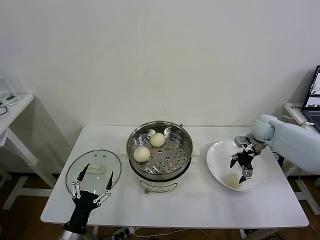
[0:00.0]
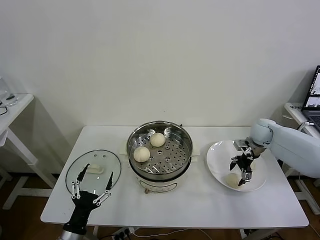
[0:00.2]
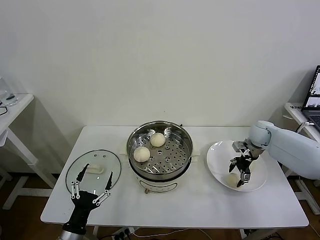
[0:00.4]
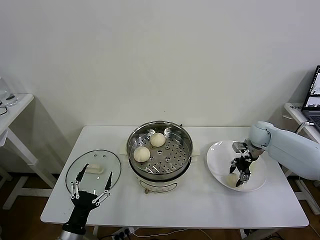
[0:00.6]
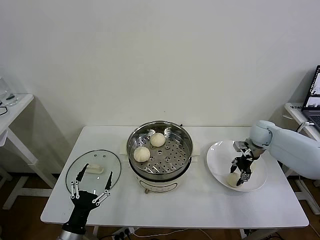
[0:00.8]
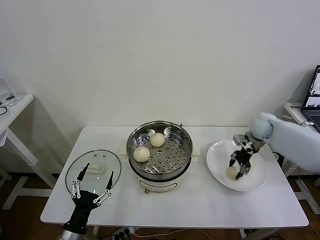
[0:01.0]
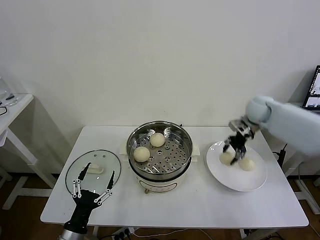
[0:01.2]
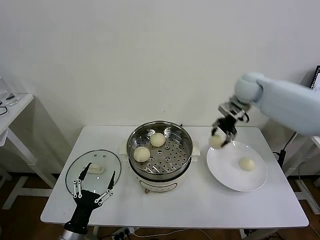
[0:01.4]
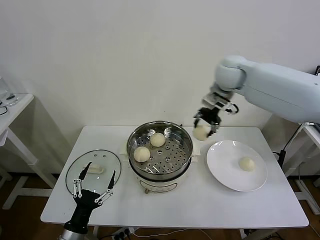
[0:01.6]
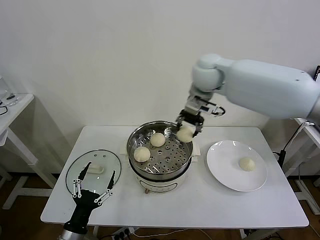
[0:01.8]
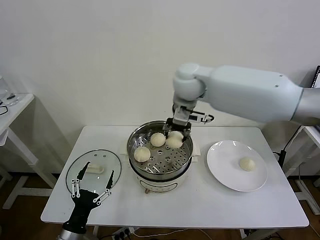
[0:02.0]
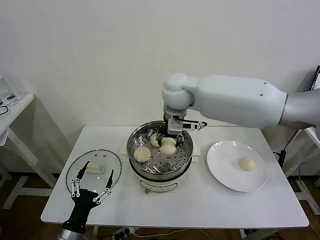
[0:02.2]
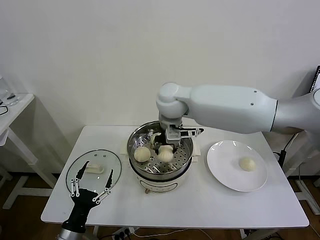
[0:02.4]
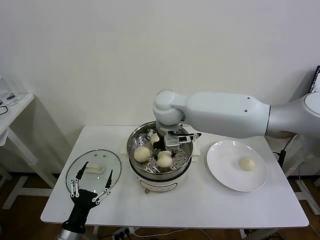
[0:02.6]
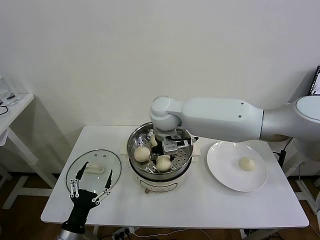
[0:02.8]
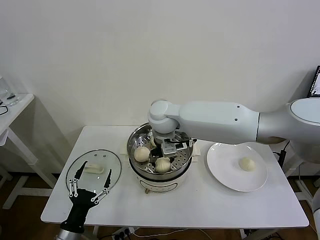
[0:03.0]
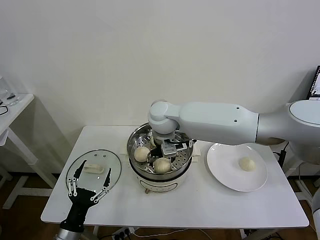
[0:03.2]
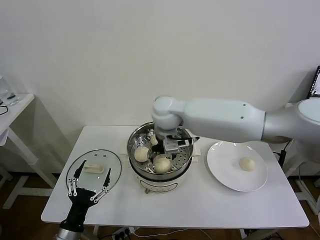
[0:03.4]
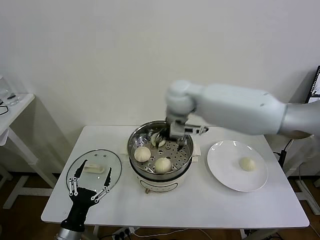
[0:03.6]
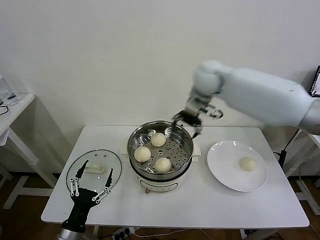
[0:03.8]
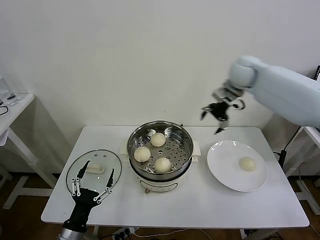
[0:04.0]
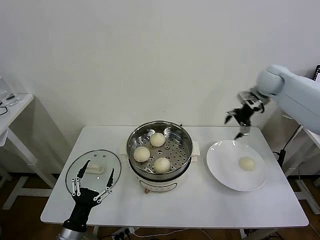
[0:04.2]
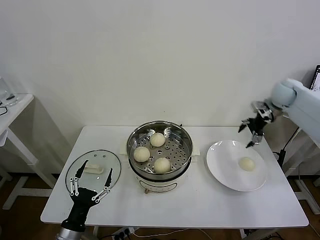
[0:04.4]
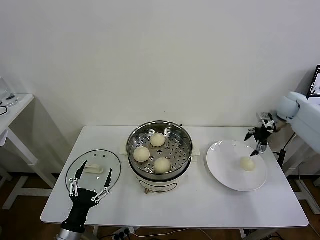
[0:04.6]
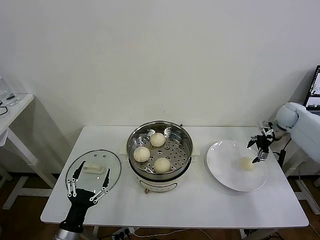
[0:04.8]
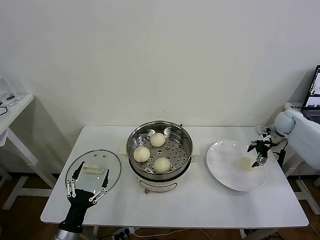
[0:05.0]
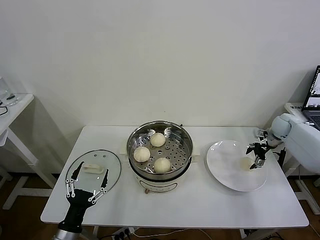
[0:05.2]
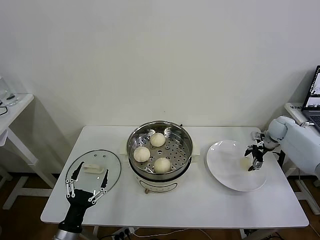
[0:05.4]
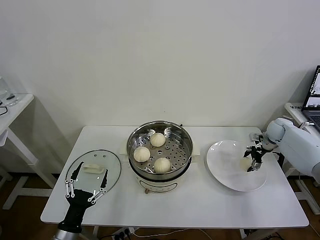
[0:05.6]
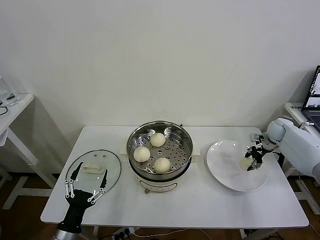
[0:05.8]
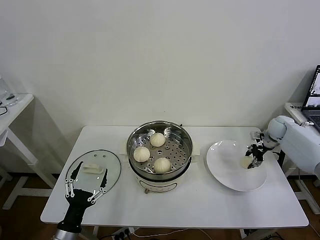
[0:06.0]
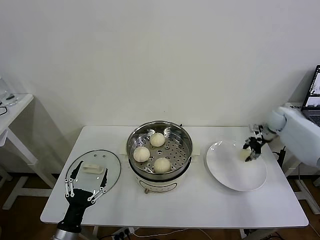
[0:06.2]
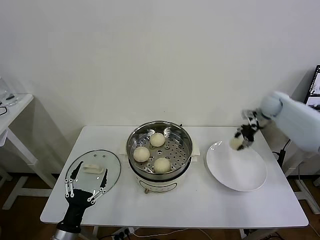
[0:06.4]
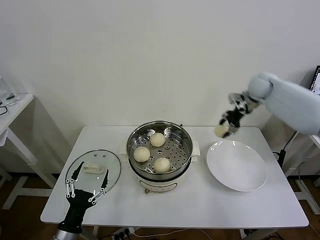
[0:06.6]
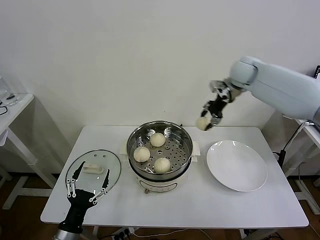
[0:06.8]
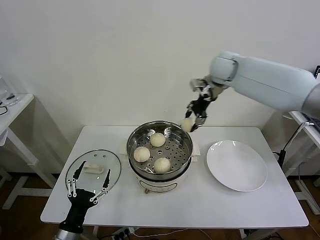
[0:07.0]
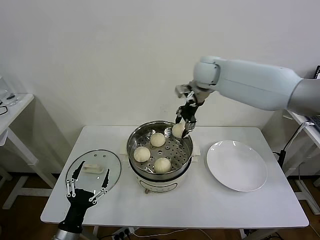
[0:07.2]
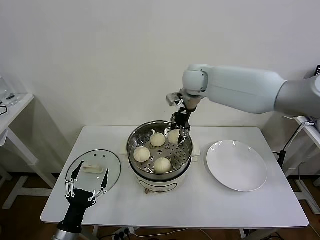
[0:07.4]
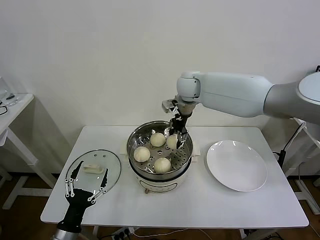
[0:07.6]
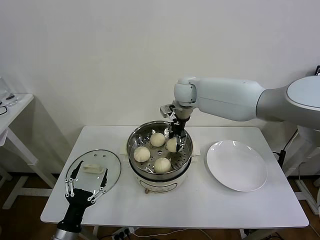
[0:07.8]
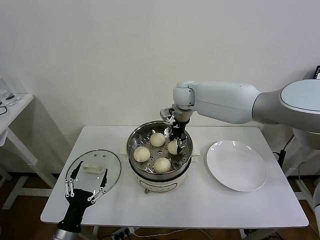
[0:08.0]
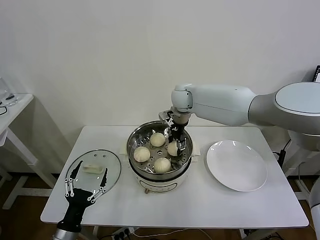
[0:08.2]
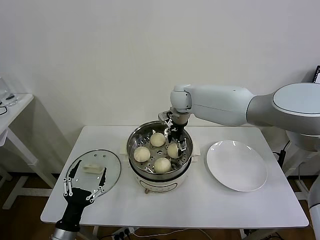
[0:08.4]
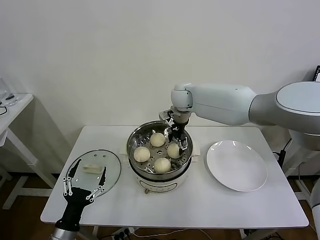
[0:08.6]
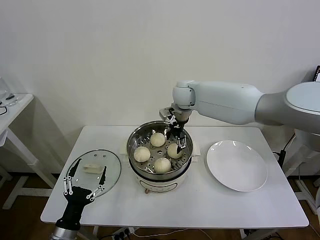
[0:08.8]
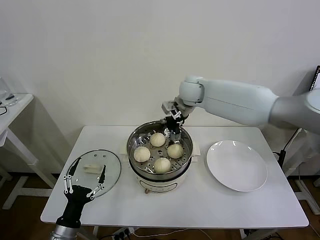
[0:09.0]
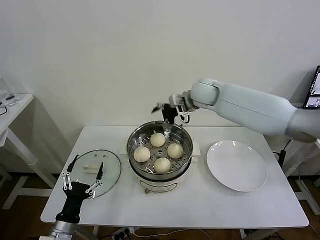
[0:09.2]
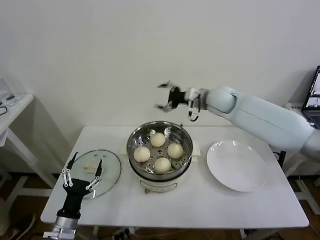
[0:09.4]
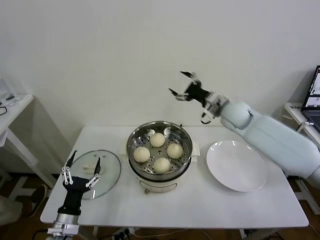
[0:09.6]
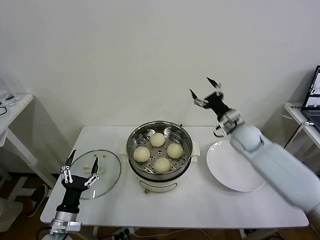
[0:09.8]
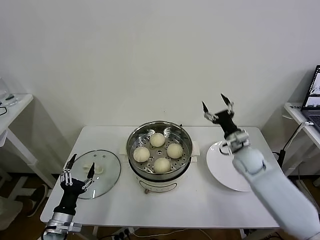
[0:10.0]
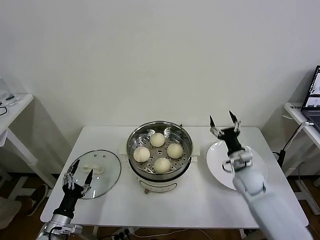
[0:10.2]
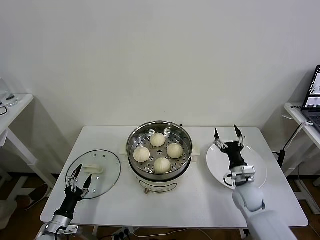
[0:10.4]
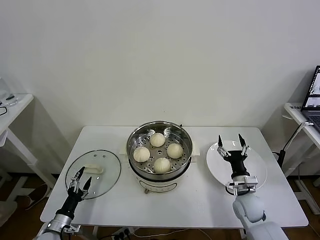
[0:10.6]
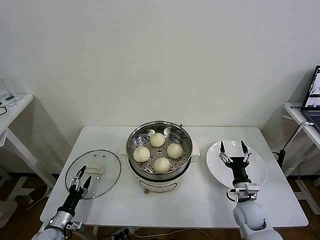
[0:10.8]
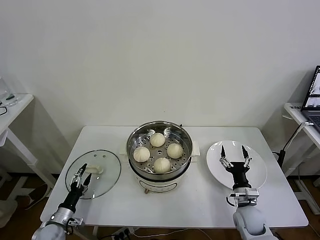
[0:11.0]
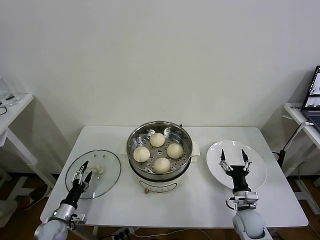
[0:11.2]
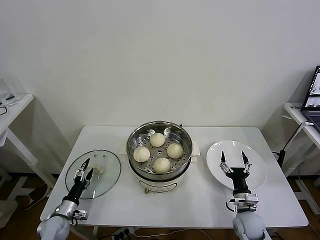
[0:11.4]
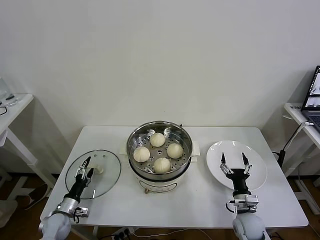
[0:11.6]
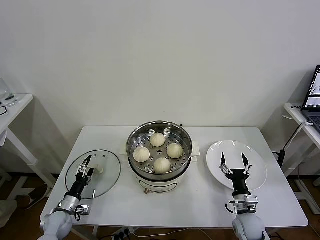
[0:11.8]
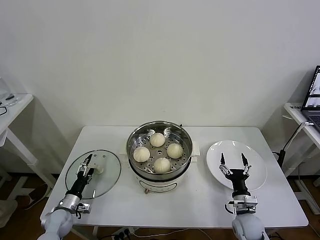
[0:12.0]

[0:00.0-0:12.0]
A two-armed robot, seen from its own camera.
Task of the whole recording: take steamed baozi put them in steamer then cover it.
Step, 0:00.8 to 0:03.2: Place the baozi on the steamer with right gripper.
Step, 0:03.4 to 0:05.8: Grasp the baozi in the plate with right gripper.
Step, 0:06.0 to 0:08.6: Place the baozi on the steamer with right gripper.
0:00.0 to 0:01.6: The right gripper moves upward and to the left, roughly 30 cm, and closes up.
0:01.6 to 0:03.0: The right gripper shifts some 20 cm to the left, downward and backward, and opens.
0:03.0 to 0:04.4: The right gripper moves to the right, about 40 cm.
0:04.4 to 0:06.0: The right gripper heads downward, covering approximately 15 cm, and closes up.
0:06.0 to 0:07.6: The right gripper heads to the left and upward, covering some 40 cm.
0:07.6 to 0:09.0: The right gripper opens.
0:09.0 to 0:10.4: The right gripper goes approximately 40 cm downward, backward and to the right. The left gripper heads downward and to the left, covering approximately 10 cm.
0:10.4 to 0:12.0: The right gripper travels backward and downward by about 10 cm, while the left gripper moves forward, about 10 cm.

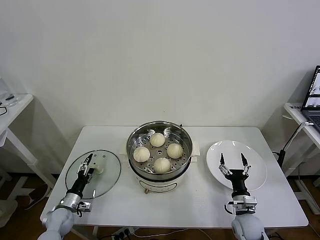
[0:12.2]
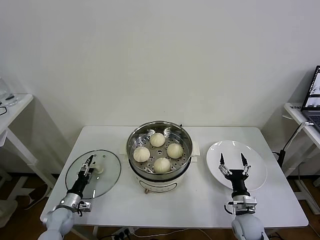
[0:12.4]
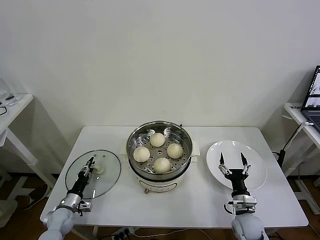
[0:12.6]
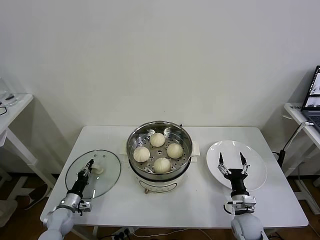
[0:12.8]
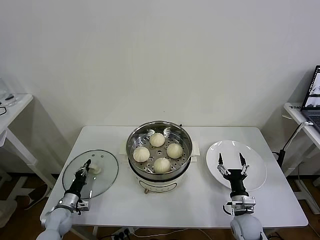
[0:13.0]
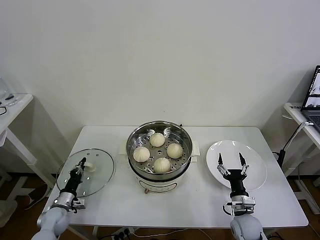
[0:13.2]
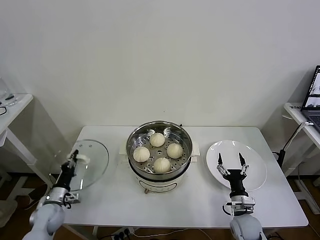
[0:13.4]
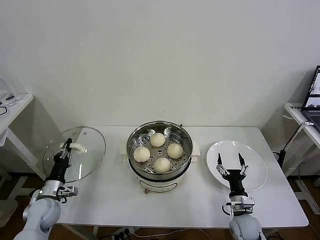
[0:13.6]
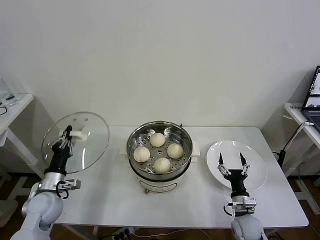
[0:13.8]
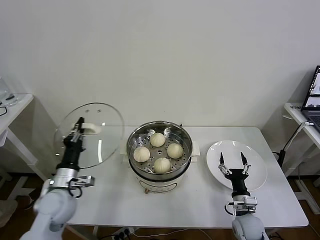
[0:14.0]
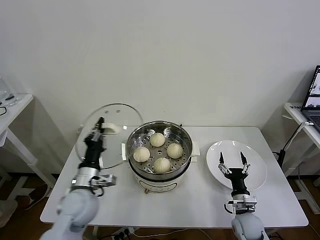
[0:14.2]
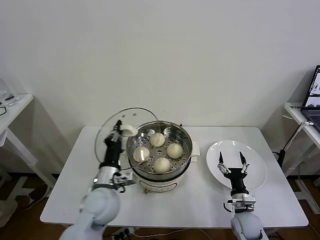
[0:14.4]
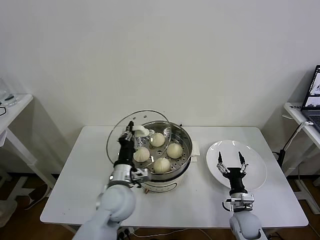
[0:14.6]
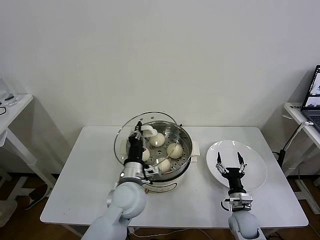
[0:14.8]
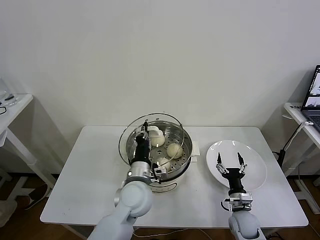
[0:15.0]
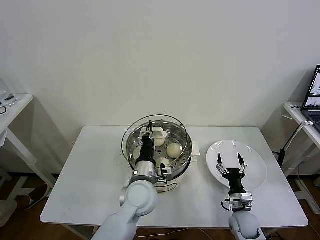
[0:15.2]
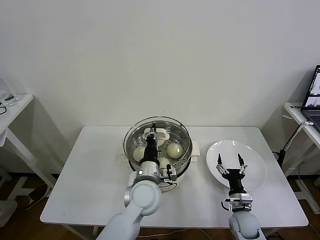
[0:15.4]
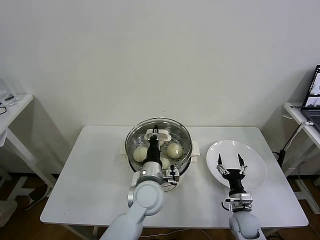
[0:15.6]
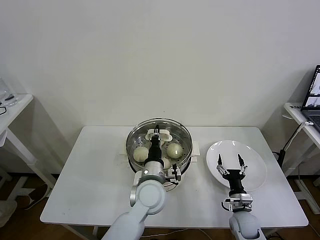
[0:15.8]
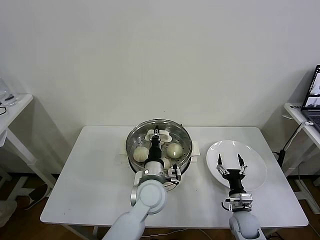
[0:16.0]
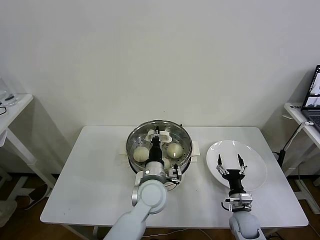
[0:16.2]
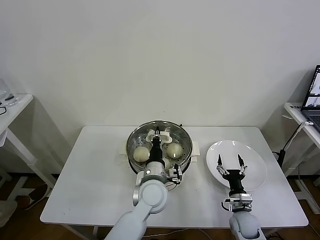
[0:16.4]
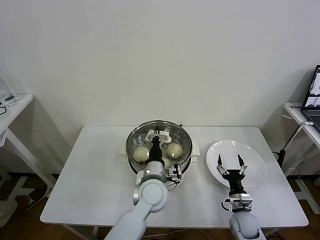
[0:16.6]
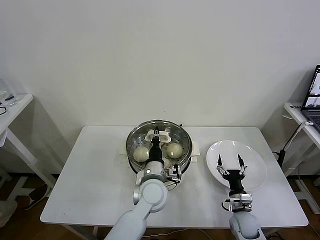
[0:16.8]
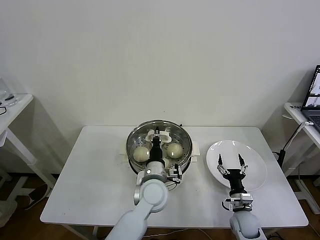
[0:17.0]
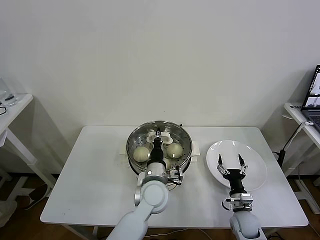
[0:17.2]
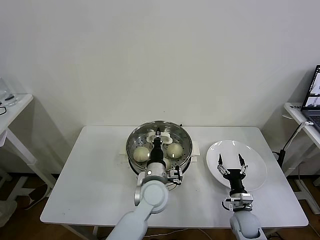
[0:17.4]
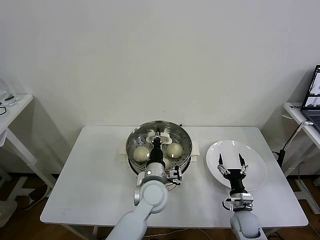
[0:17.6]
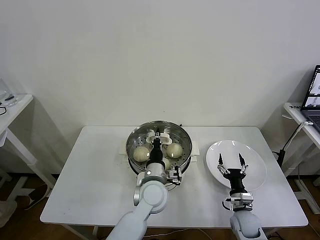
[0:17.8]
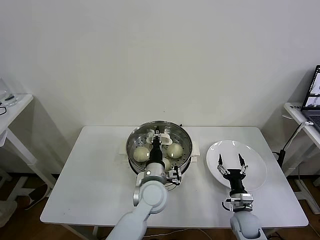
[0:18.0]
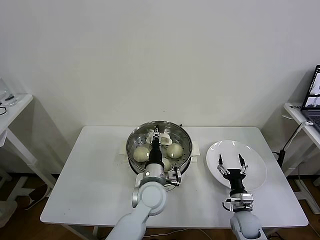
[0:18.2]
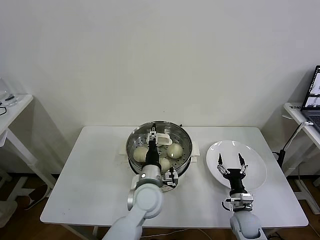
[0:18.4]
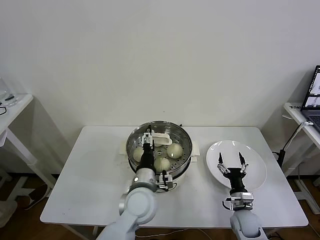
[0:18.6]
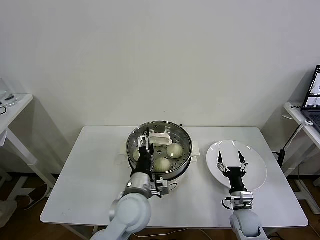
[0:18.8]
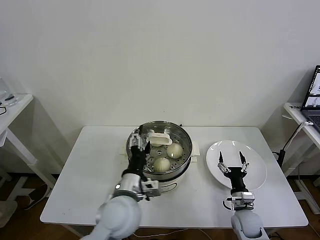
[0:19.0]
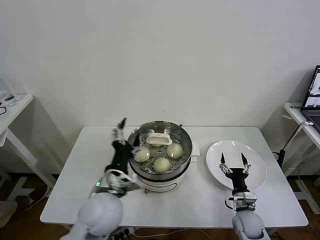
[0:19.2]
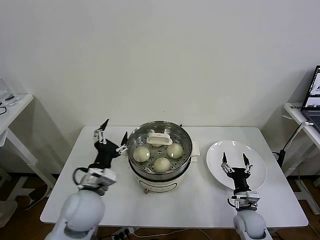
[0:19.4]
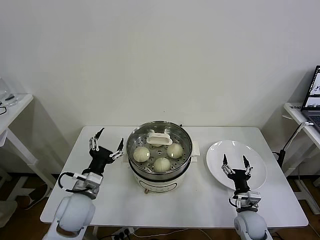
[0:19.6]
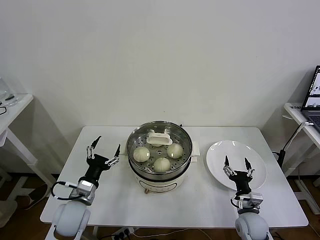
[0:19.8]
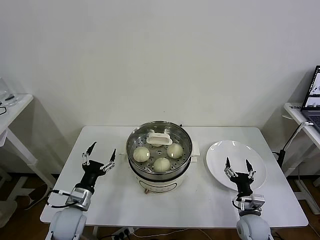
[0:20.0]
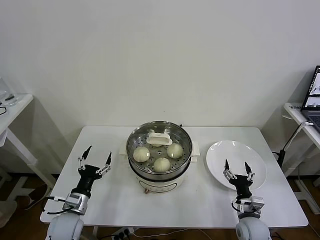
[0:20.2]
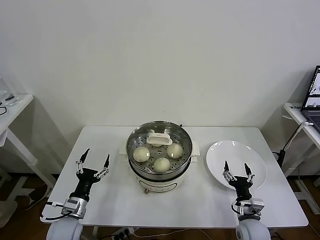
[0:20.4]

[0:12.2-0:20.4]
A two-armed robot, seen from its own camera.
Task of the whole recording: take steamed baozi put them in steamer then cover it.
Step, 0:13.2 to 0:18.6: Place the pot lid on the steamer with left gripper.
0:12.2 to 0:13.8: The left gripper moves upward, some 15 cm, and closes.
0:13.8 to 0:15.4: The left gripper moves to the right, some 30 cm.
0:15.4 to 0:17.2: The grippers make only small movements.
0:17.2 to 0:18.8: The left gripper moves approximately 10 cm, and opens up.
0:18.8 to 0:20.4: The left gripper moves to the left and downward, approximately 25 cm.
